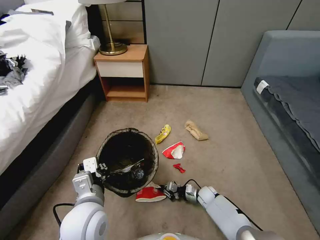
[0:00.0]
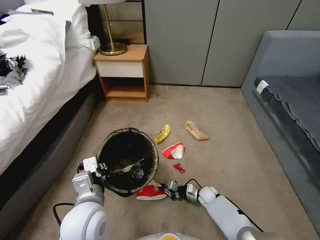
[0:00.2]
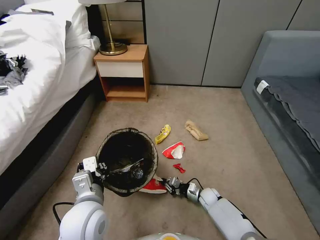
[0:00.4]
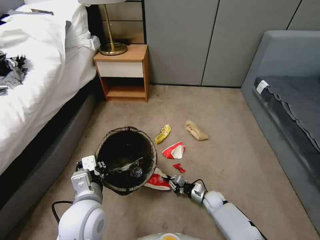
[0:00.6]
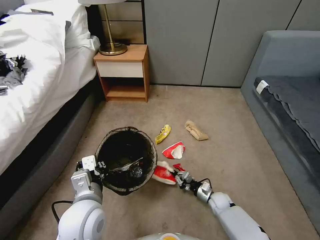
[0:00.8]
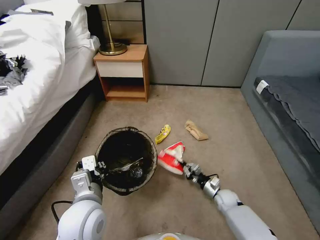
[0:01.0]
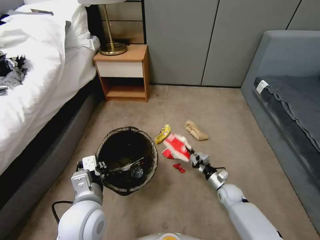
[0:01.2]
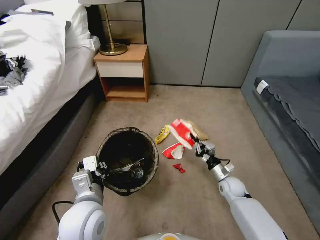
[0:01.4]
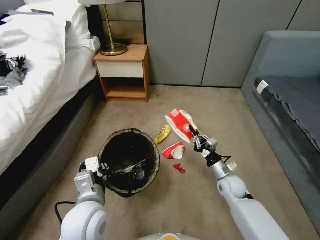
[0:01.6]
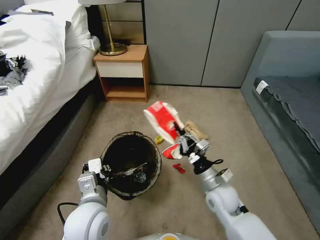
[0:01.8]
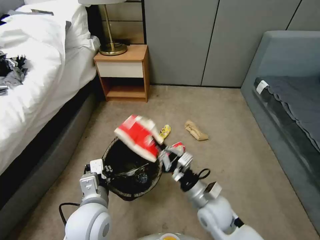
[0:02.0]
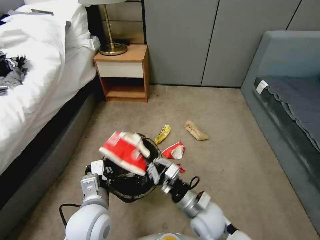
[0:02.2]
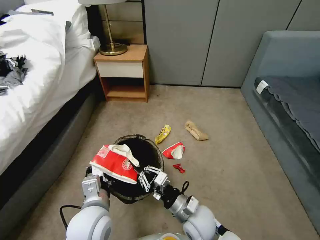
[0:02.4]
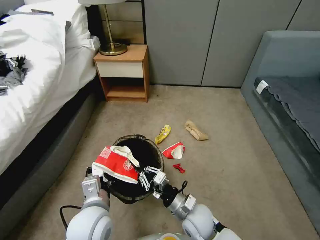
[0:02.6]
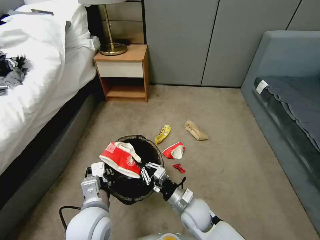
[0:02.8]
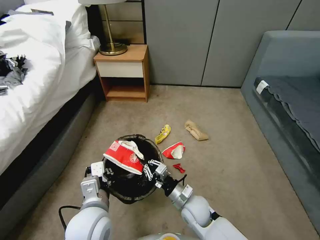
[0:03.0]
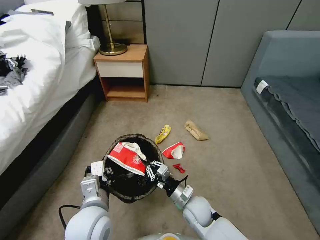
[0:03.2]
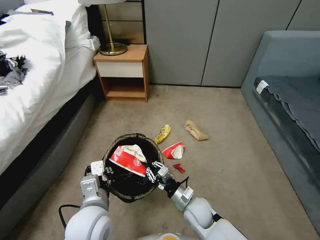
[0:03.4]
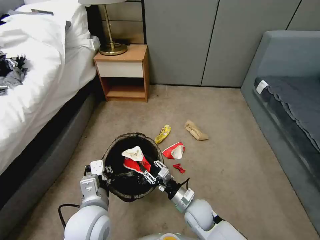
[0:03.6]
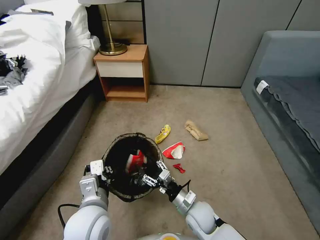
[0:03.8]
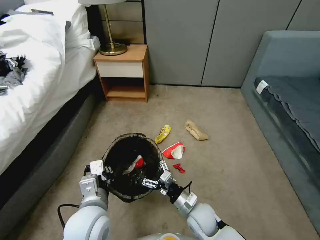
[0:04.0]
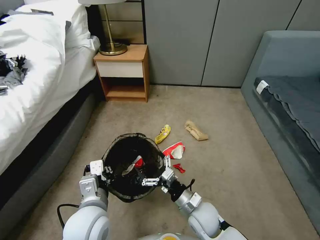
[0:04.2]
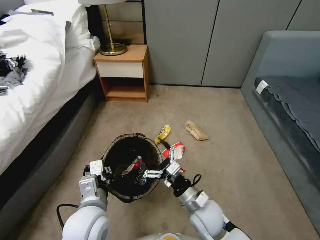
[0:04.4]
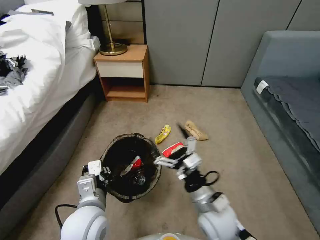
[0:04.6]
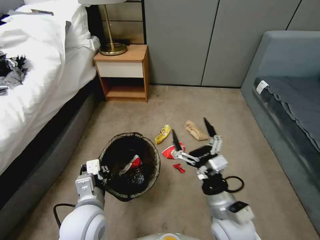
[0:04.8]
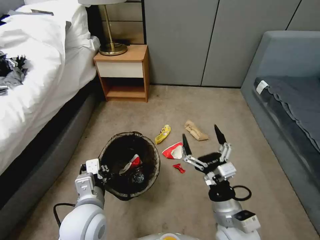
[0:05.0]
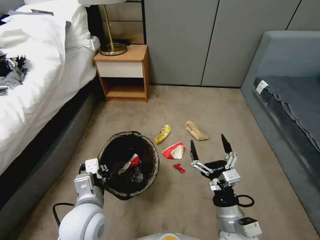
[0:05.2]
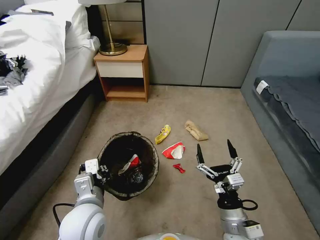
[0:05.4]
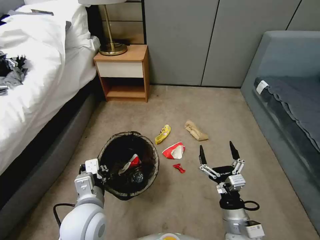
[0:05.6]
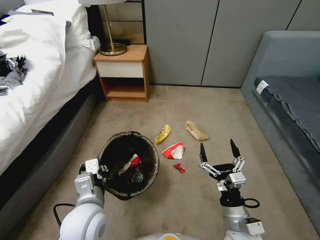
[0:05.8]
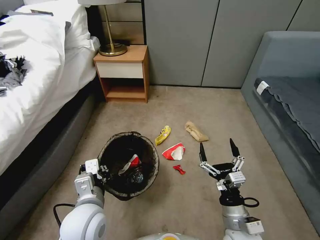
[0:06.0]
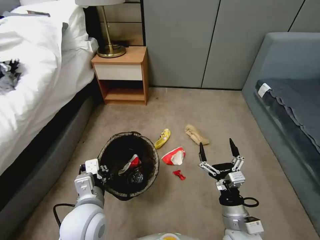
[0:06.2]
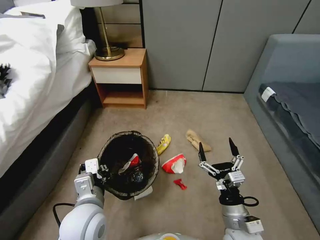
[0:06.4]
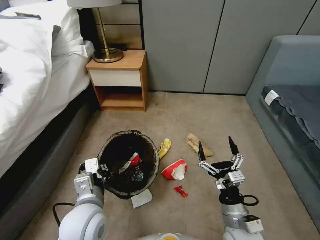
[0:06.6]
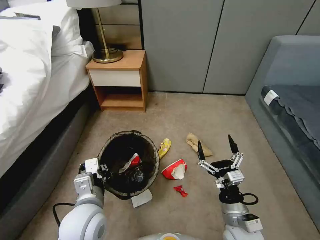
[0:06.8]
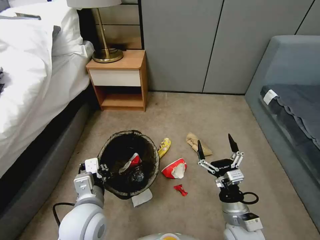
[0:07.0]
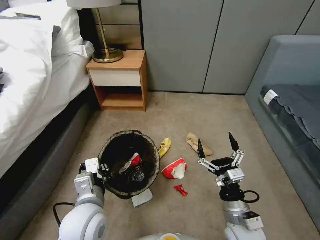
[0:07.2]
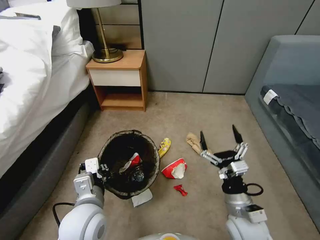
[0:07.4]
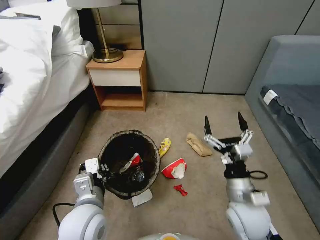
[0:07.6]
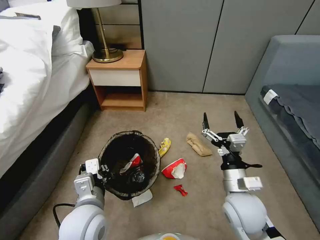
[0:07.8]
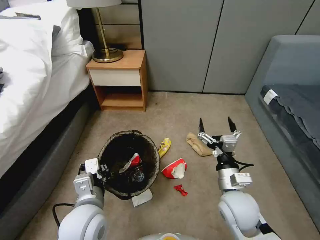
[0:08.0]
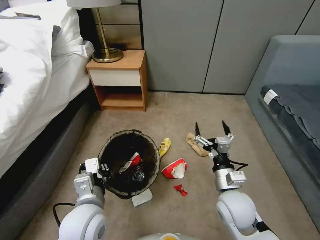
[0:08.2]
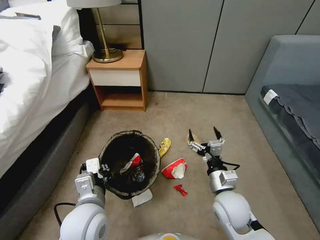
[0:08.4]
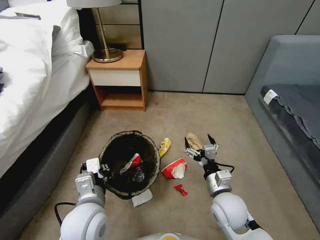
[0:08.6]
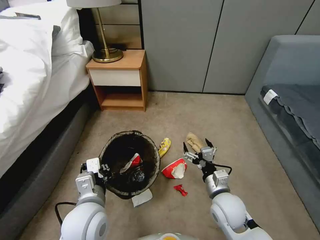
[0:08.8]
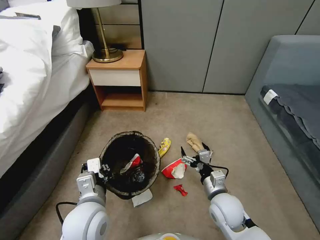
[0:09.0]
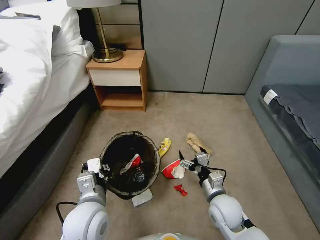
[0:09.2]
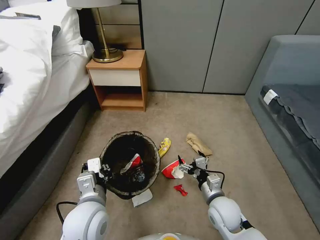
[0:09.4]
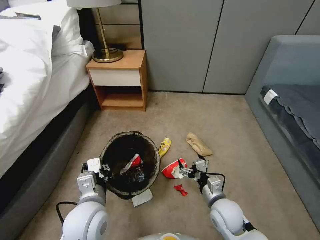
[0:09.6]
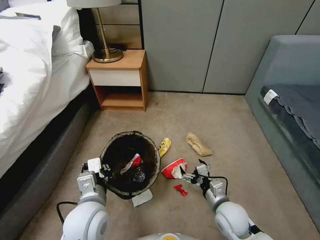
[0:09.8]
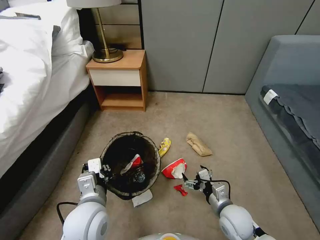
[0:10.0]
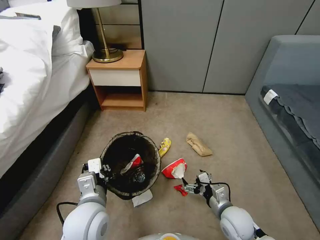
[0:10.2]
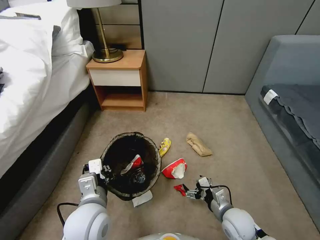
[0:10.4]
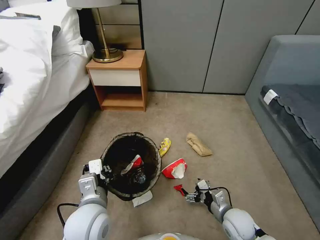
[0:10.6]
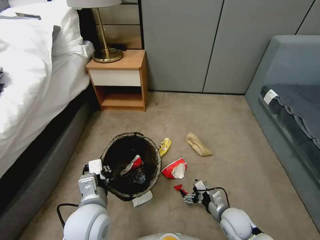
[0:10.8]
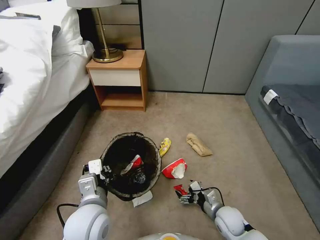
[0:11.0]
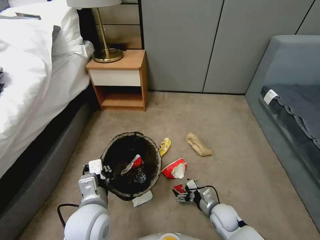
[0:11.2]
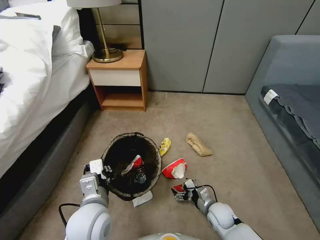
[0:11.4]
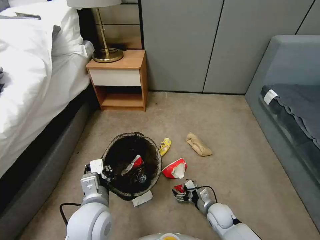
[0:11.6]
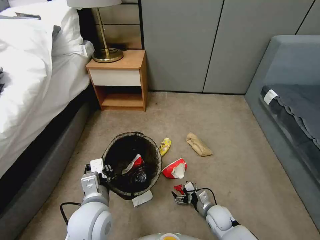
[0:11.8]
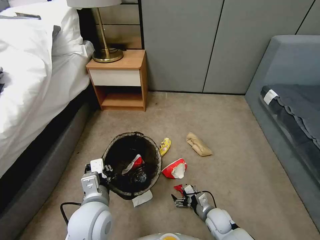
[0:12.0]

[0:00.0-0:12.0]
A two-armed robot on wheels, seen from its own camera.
Task of the whole recording: Pick up the trash bin, then pick up the garbage from the floor and place it into the trash bin.
0:00.0 to 0:01.6: The right gripper moves upward, approximately 15 cm.
0:01.6 to 0:03.0: The right gripper moves to the left and backward, about 20 cm.
0:03.0 to 0:04.4: The right gripper goes roughly 5 cm upward, and opens up.
0:04.4 to 0:06.0: The right gripper moves to the right and backward, approximately 10 cm.
0:06.0 to 0:07.6: The right gripper is displaced upward and forward by some 10 cm.
0:07.6 to 0:09.0: The right gripper goes roughly 10 cm downward.
0:09.0 to 0:10.4: The right gripper is displaced downward and to the right by some 10 cm.
0:10.4 to 0:12.0: The right gripper is displaced downward by approximately 10 cm.

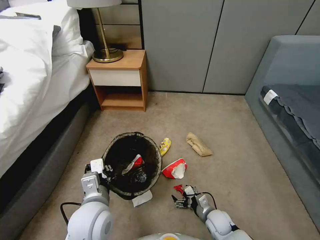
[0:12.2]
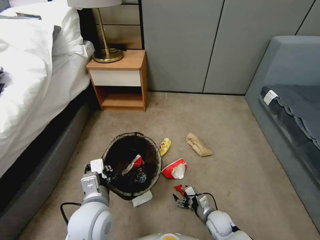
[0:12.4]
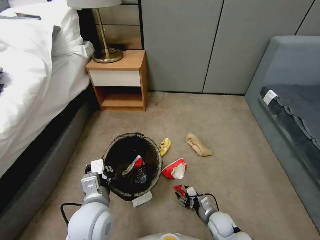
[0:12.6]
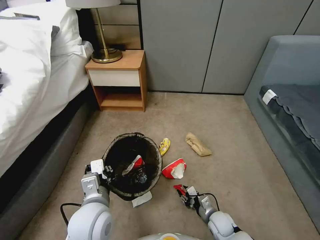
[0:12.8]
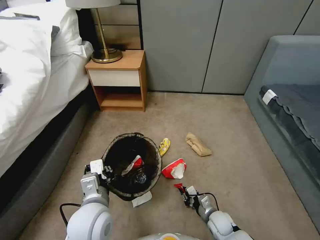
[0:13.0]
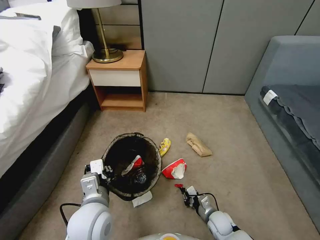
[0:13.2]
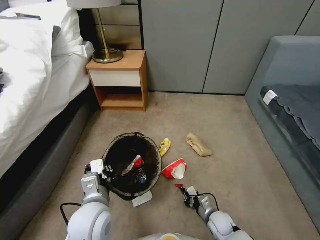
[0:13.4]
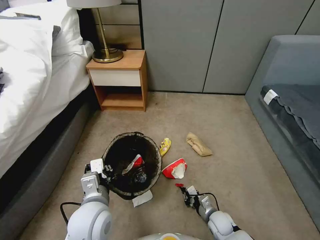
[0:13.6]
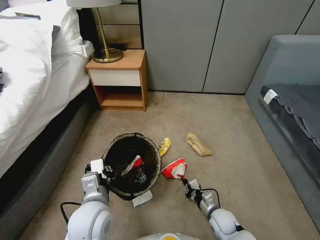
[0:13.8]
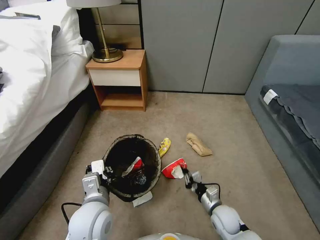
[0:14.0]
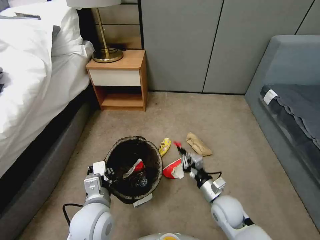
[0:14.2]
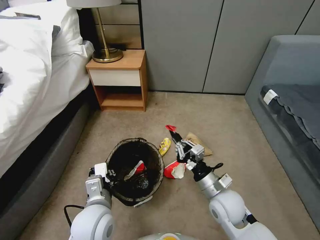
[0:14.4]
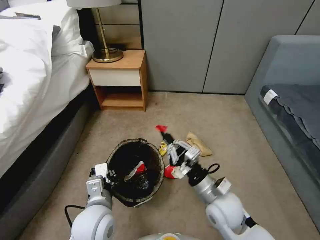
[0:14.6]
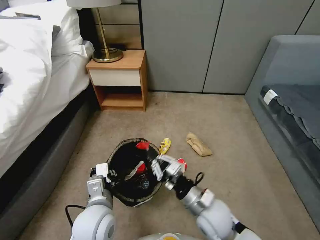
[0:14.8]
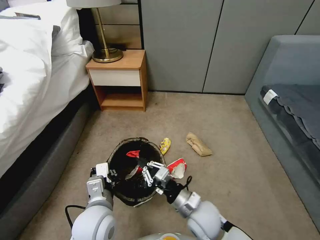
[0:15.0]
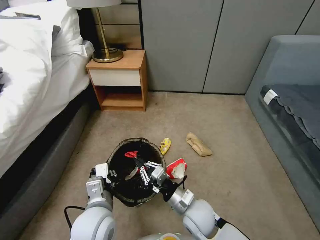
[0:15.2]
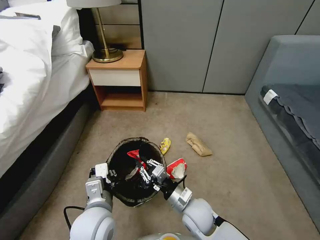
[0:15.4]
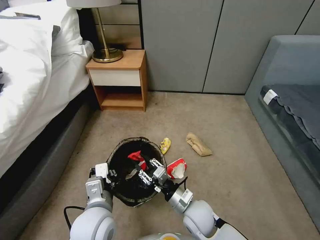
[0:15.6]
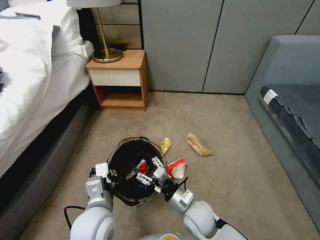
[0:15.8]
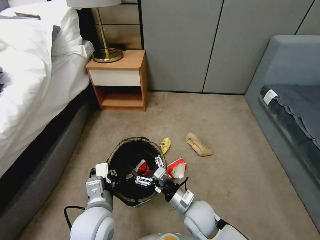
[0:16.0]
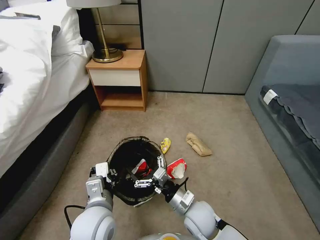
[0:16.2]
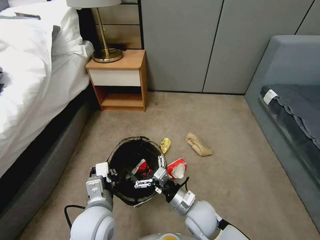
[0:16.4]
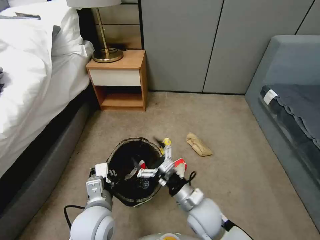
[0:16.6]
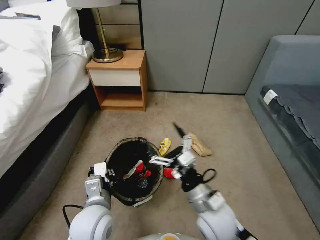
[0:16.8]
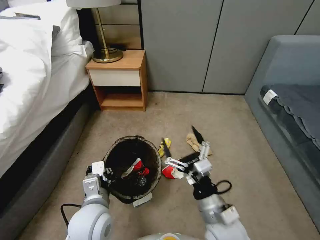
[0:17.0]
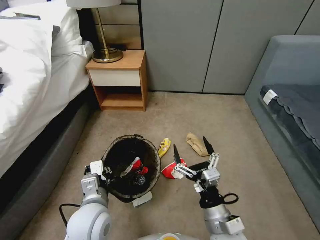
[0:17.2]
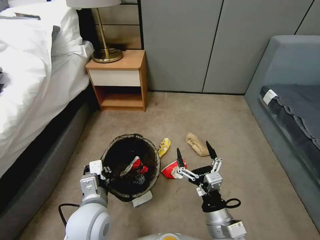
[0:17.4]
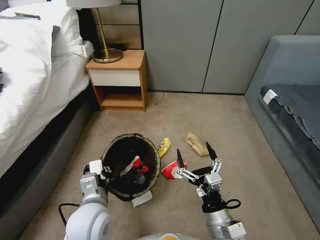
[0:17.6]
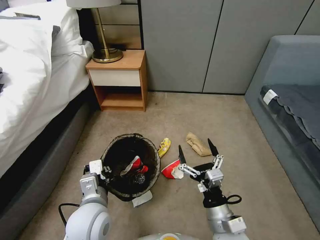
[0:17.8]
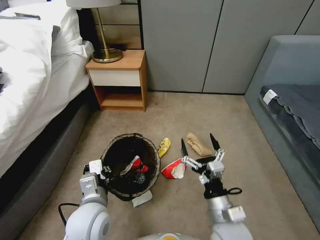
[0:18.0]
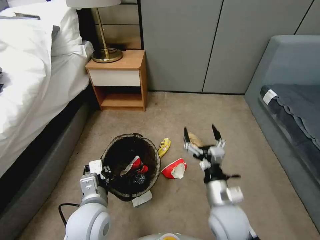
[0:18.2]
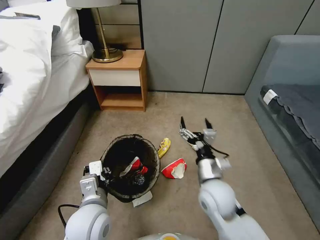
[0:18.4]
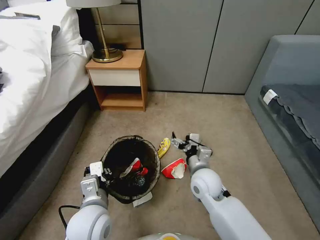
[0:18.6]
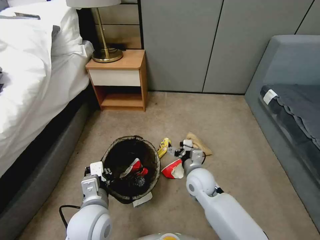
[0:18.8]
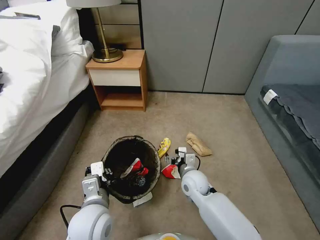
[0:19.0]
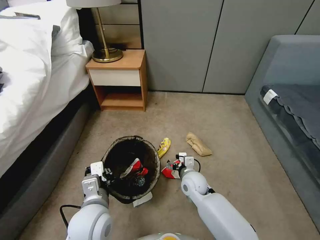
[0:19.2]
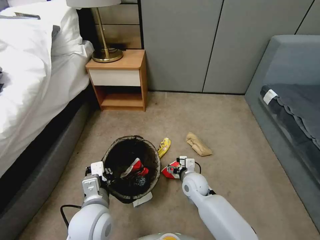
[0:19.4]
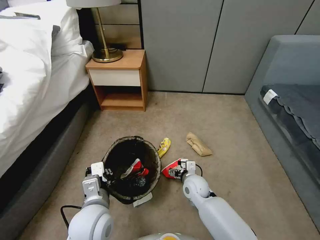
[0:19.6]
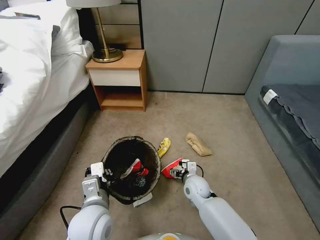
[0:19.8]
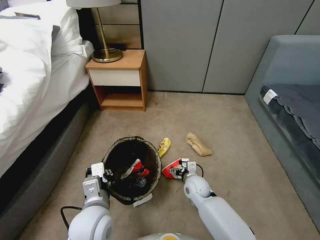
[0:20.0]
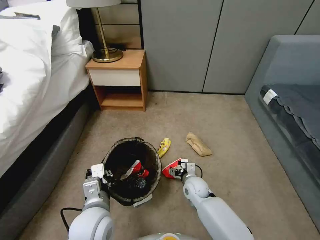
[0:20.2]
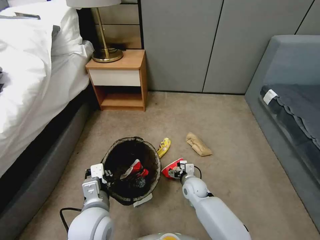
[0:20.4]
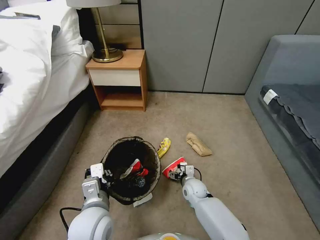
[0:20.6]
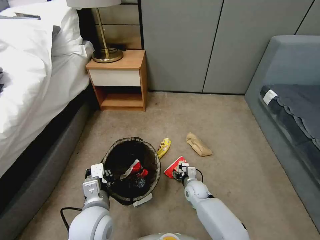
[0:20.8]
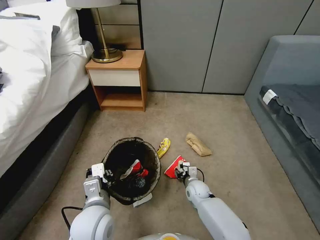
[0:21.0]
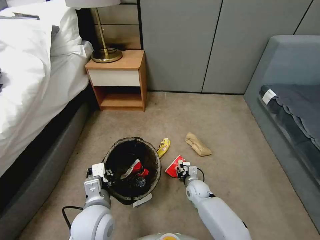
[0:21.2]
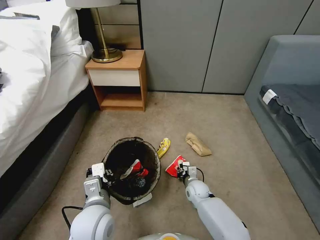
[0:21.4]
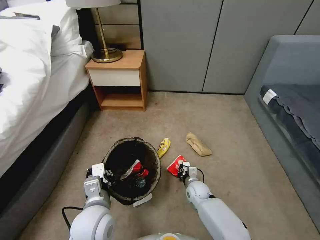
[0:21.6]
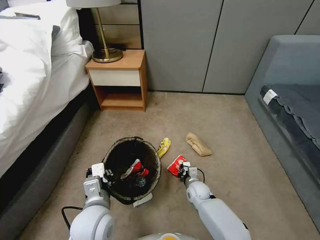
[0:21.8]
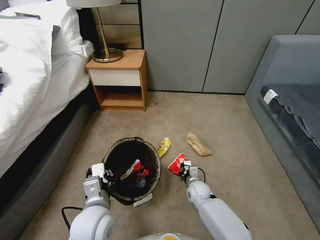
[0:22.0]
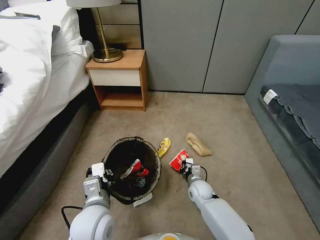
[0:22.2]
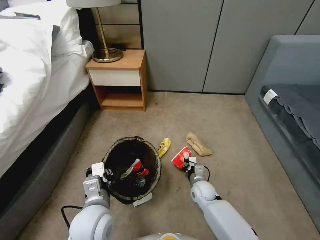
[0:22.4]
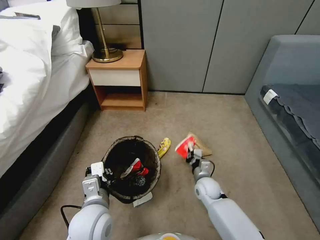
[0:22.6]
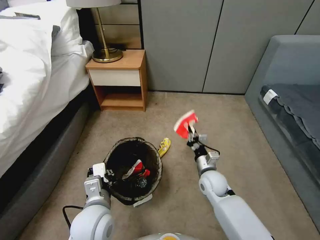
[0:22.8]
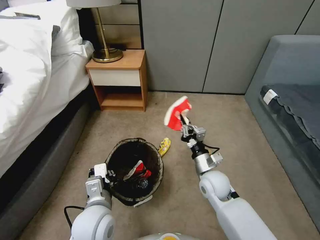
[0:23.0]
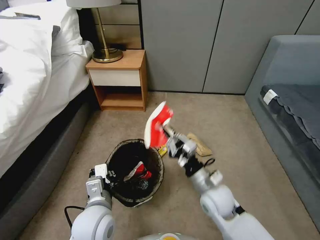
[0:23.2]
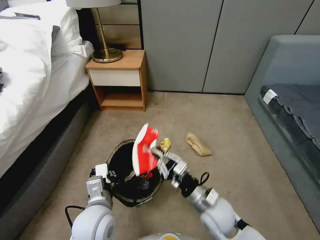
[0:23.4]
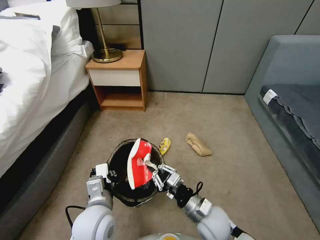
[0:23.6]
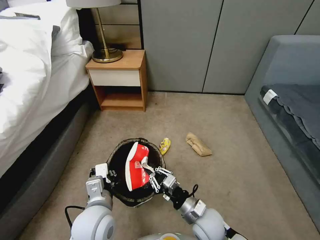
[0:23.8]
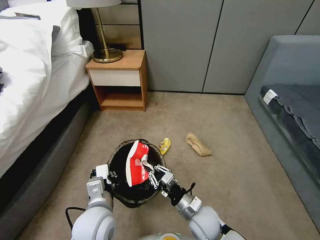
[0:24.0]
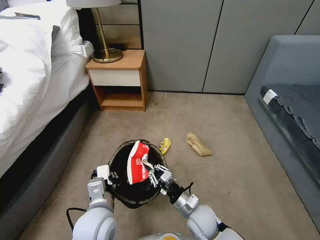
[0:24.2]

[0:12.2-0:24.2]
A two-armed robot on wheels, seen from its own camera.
Task of the whole recording: Pick up the trash bin, then pick up the garbage from the floor and place it into the trash bin.
0:12.2 to 0:13.8: The right gripper closes.
0:13.8 to 0:15.2: The right gripper heads upward and to the left, covering some 20 cm.
0:15.2 to 0:16.6: The right gripper opens up.
0:16.6 to 0:18.2: The right gripper moves approximately 10 cm backward and comes back.
0:18.2 to 0:19.8: The right gripper goes roughly 20 cm downward and forward.
0:19.8 to 0:21.2: The right gripper travels downward by roughly 10 cm, and closes up.
0:21.2 to 0:22.6: The right gripper heads upward, covering roughly 5 cm.
0:22.6 to 0:24.2: The right gripper travels backward and to the left by about 15 cm, and goes upward and returns, approximately 15 cm each way.
